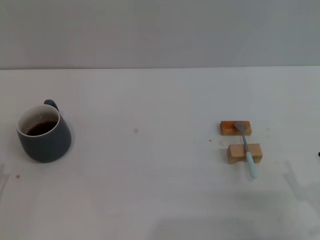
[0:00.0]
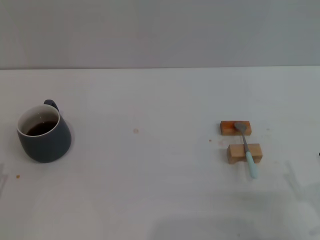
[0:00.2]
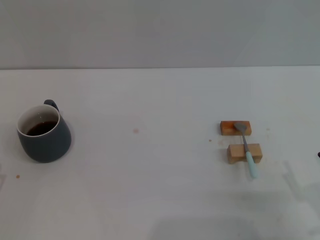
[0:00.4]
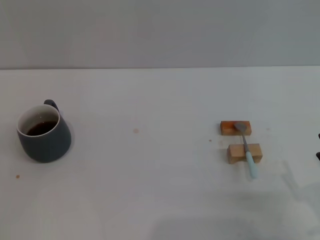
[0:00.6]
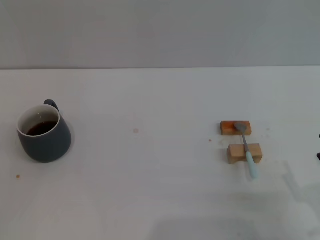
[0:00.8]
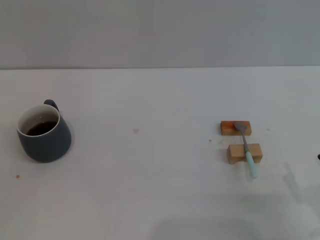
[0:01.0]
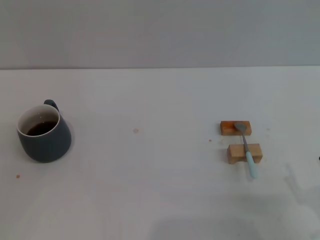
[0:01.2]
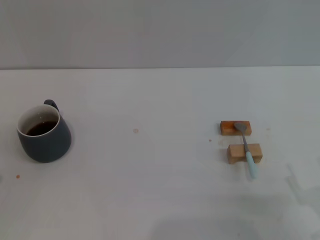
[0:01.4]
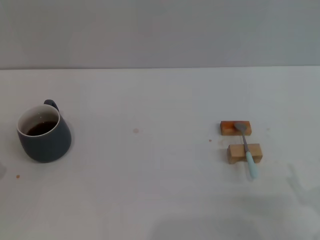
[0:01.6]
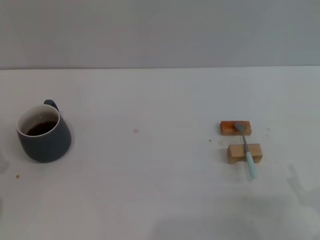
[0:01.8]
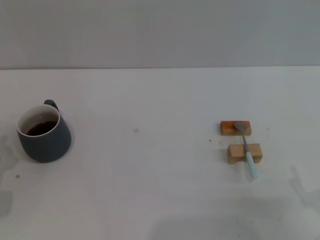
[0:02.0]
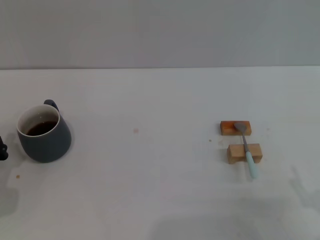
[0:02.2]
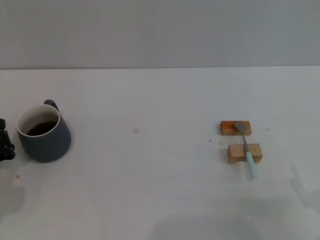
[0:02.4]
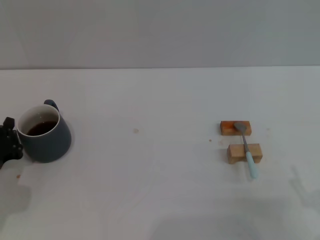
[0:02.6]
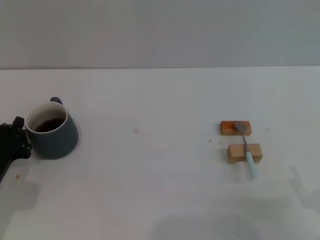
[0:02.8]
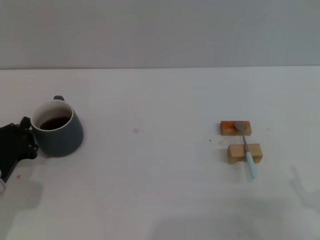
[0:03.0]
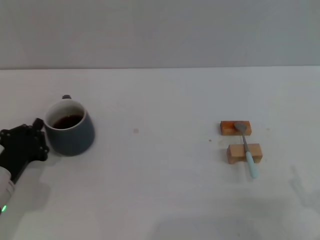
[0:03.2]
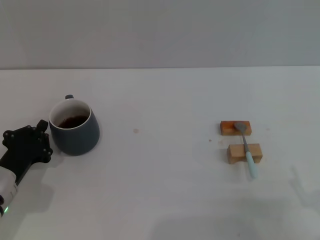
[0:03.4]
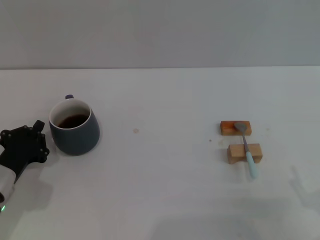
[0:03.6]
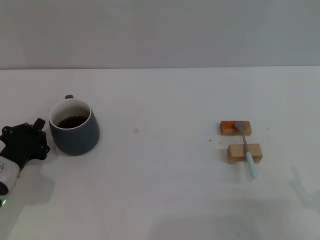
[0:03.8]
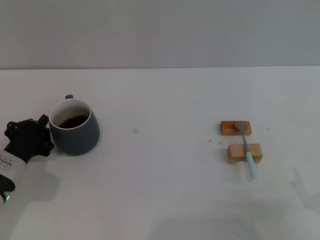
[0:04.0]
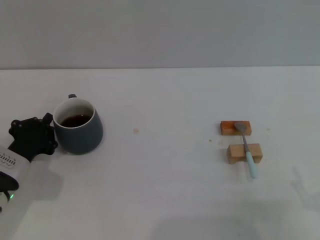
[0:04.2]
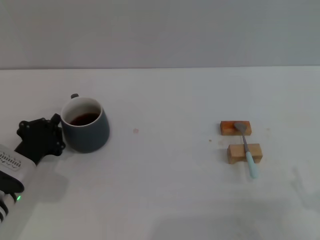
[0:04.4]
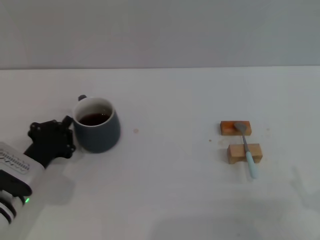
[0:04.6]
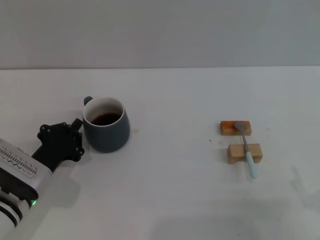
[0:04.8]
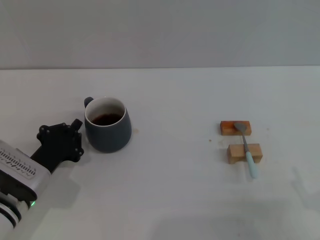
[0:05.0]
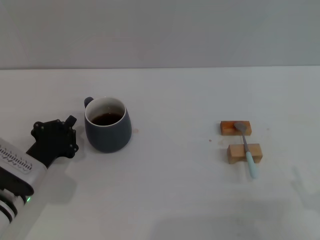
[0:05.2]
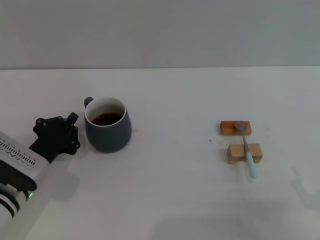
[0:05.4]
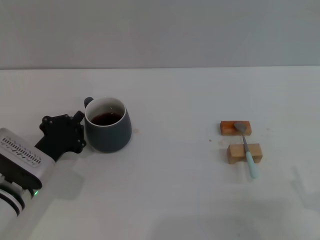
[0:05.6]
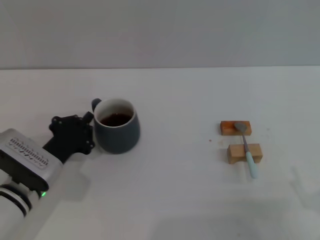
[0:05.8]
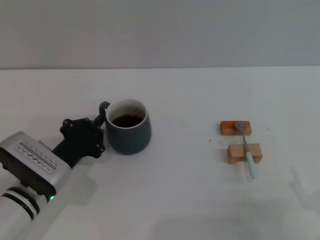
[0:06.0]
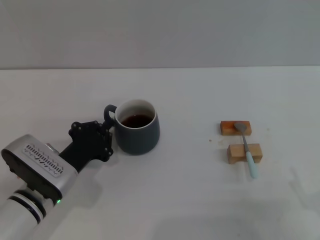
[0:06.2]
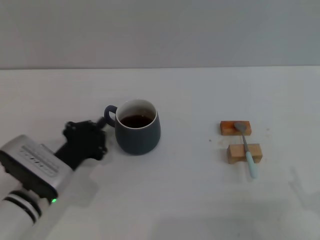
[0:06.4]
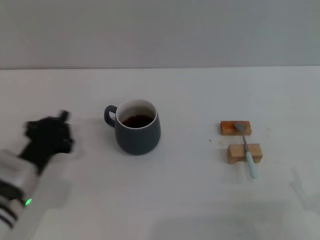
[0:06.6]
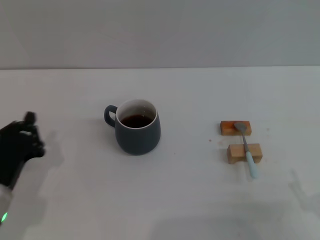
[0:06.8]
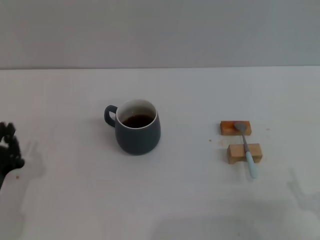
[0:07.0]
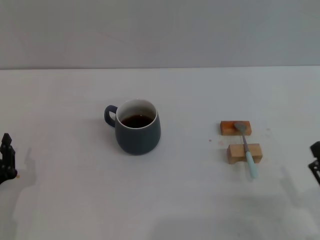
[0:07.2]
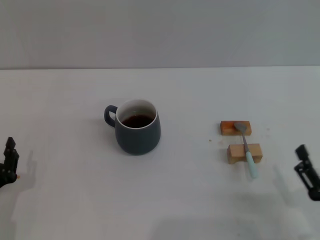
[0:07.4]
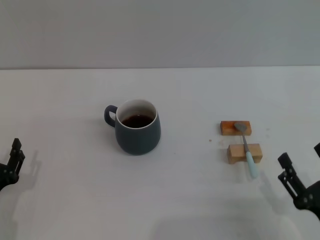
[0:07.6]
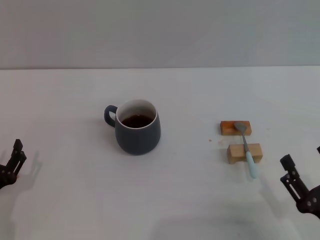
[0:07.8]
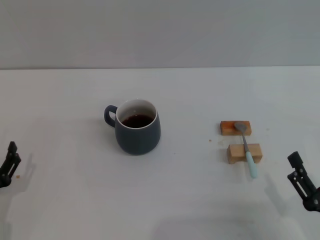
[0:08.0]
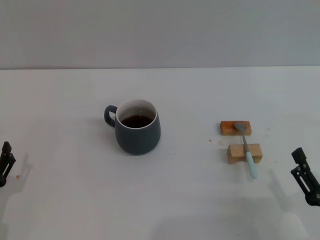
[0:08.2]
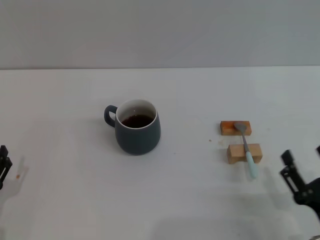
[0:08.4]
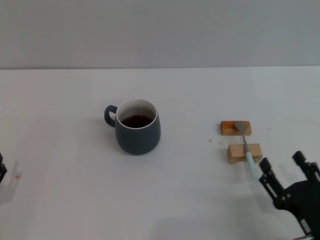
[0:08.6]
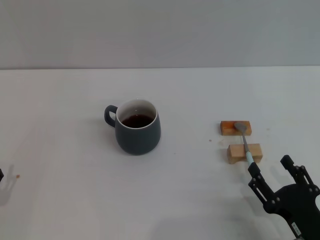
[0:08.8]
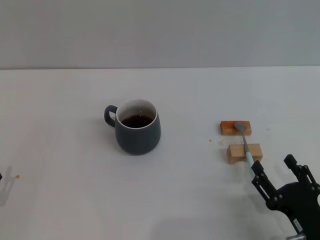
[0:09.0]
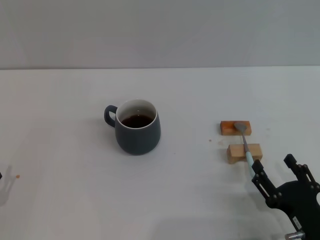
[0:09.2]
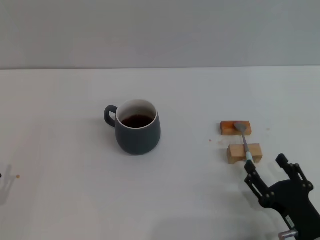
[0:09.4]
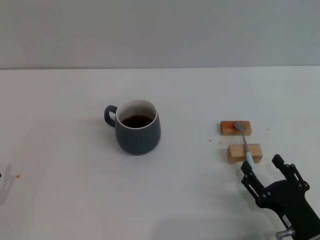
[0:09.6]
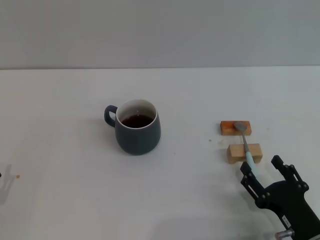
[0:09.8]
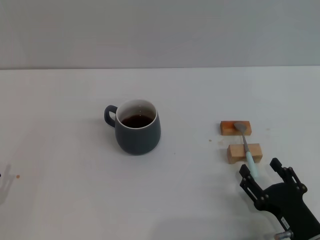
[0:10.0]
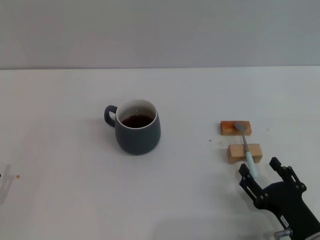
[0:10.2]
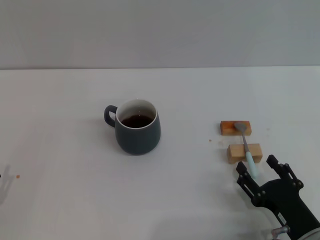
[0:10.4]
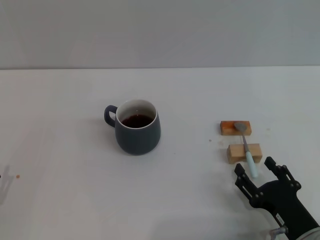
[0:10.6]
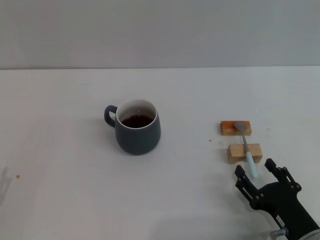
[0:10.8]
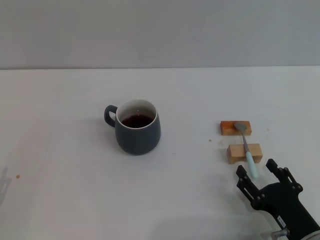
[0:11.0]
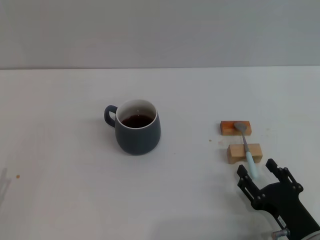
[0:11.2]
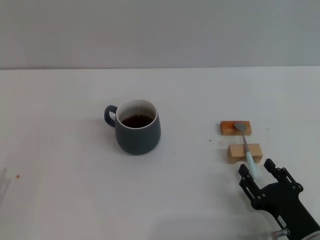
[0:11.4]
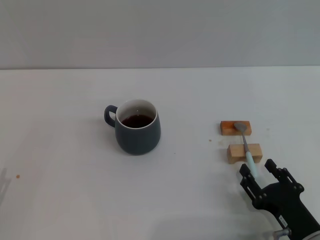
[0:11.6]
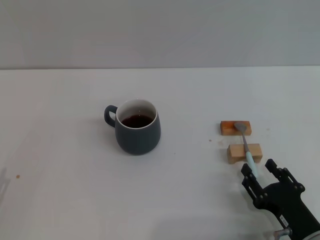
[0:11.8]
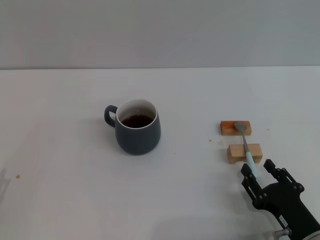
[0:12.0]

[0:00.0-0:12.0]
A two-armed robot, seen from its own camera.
Task of the whole recording: Move the grey cup to the center, lift the blue spoon, stir it three times in the cup, and put the spoon into the cup.
Step, 0:00.0 to 0:06.4: Move the cup with coffee to the center of view with the left gripper.
0:01.6 to 0:03.0: The left gripper travels forward by approximately 5 cm, and closes up.
0:03.0 to 0:04.4: The grippers stay close to where they were, moving slightly.
0:04.4 to 0:06.0: The grippers stay close to where they were, moving slightly.
0:06.0 to 0:07.6: The left gripper goes approximately 10 cm backward and to the left, and opens its fingers.
0:07.6 to 0:09.0: The left gripper opens up.
0:09.0 to 0:10.4: The grippers stay close to where they were, moving slightly.
0:10.4 to 0:12.0: The two grippers keep their place.

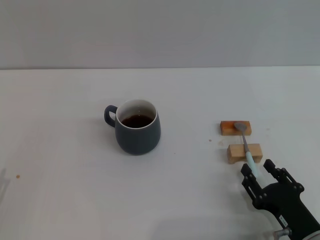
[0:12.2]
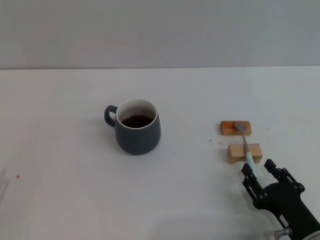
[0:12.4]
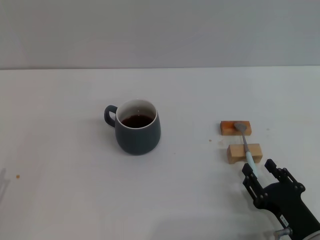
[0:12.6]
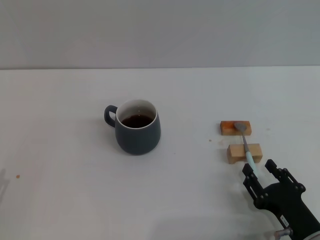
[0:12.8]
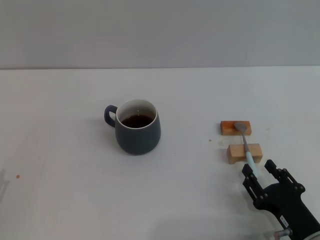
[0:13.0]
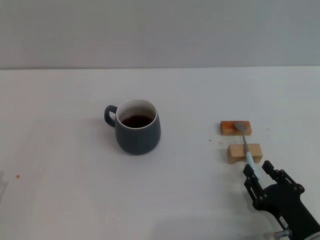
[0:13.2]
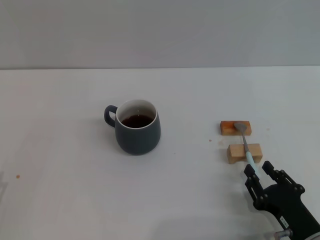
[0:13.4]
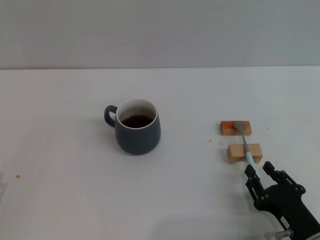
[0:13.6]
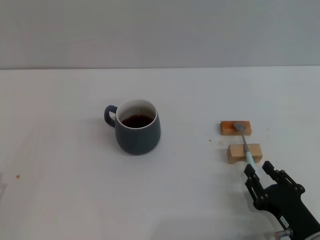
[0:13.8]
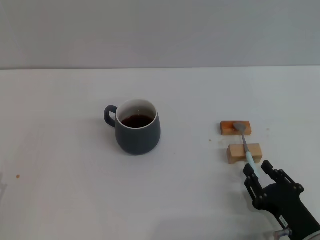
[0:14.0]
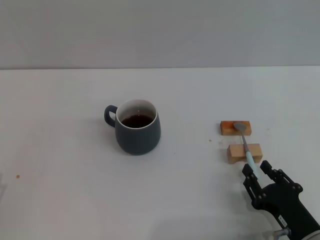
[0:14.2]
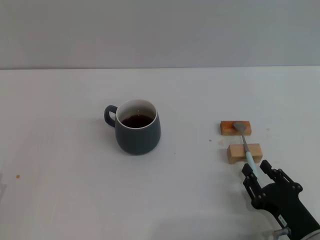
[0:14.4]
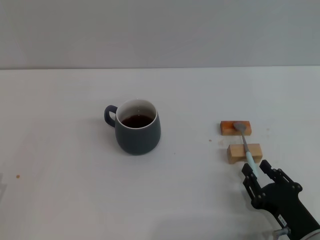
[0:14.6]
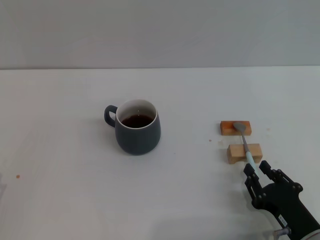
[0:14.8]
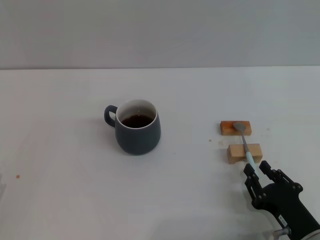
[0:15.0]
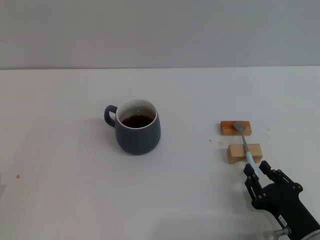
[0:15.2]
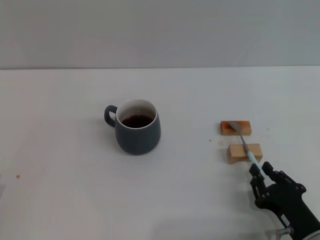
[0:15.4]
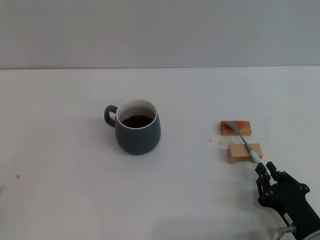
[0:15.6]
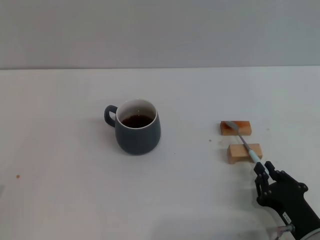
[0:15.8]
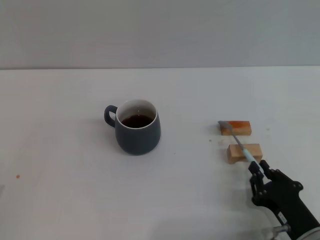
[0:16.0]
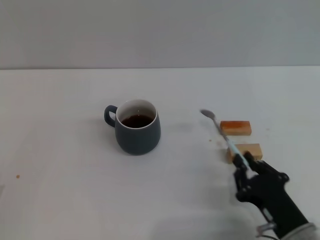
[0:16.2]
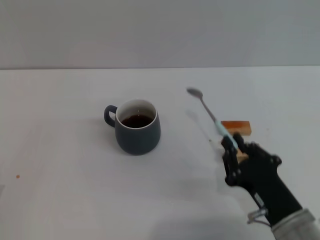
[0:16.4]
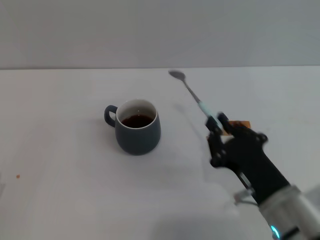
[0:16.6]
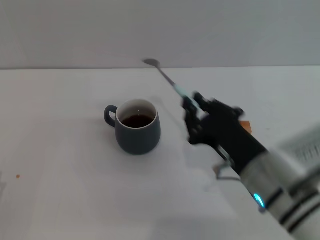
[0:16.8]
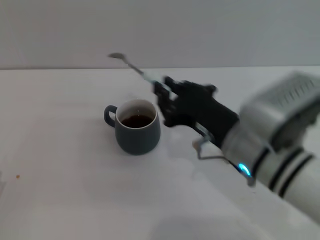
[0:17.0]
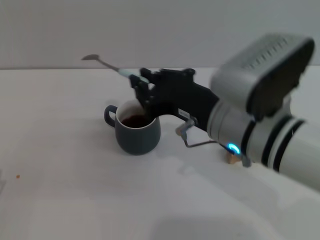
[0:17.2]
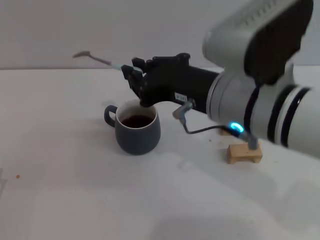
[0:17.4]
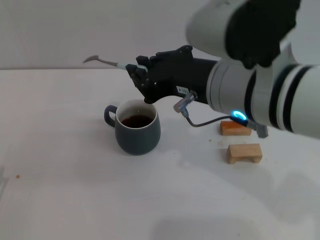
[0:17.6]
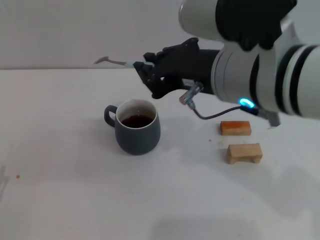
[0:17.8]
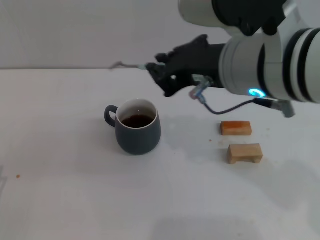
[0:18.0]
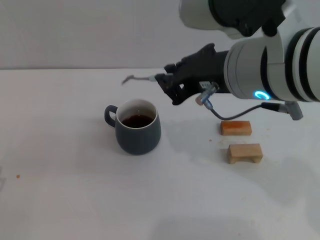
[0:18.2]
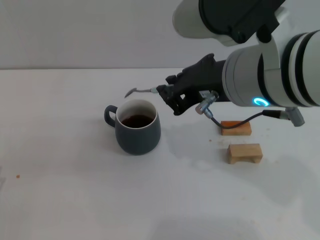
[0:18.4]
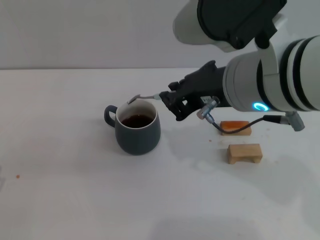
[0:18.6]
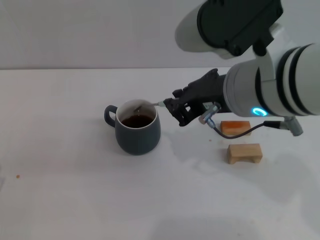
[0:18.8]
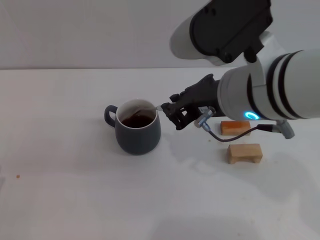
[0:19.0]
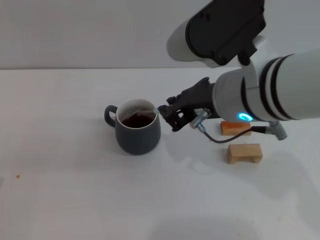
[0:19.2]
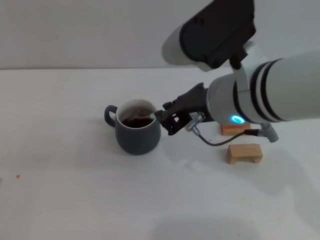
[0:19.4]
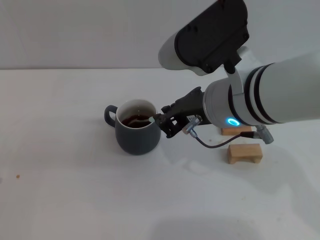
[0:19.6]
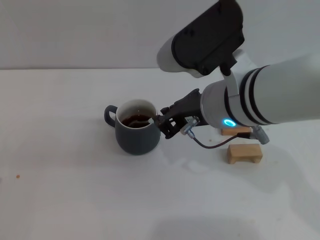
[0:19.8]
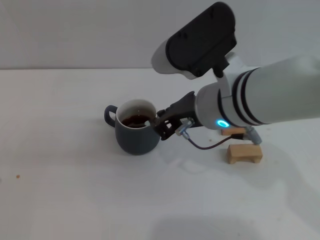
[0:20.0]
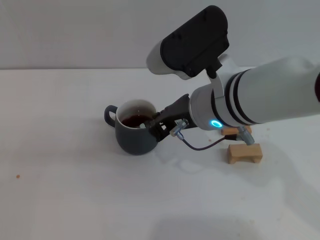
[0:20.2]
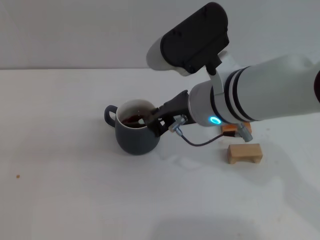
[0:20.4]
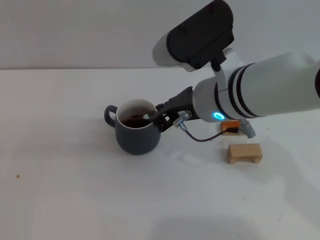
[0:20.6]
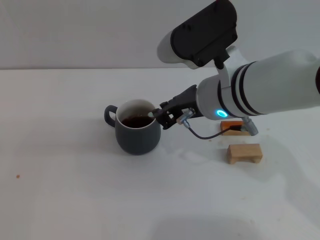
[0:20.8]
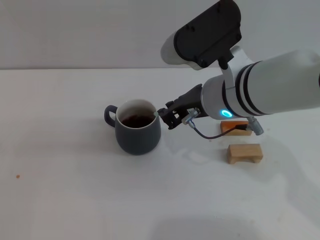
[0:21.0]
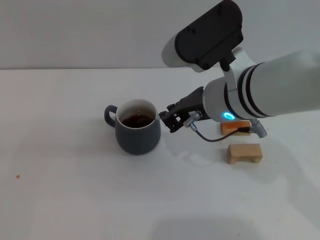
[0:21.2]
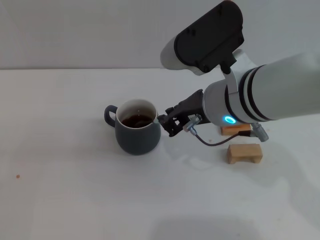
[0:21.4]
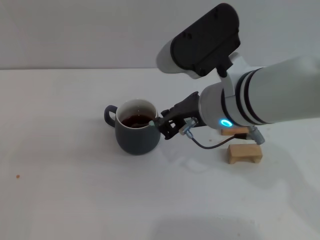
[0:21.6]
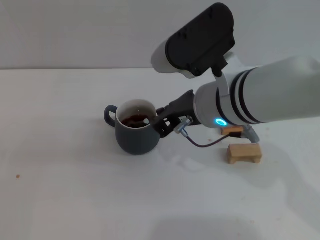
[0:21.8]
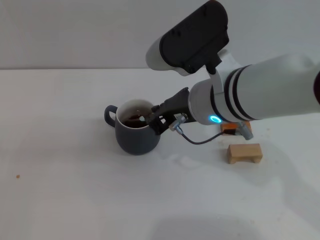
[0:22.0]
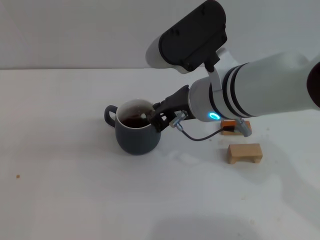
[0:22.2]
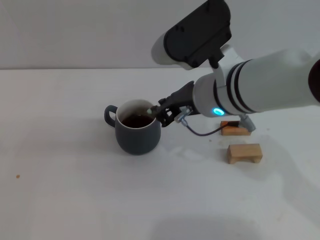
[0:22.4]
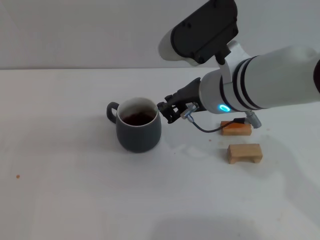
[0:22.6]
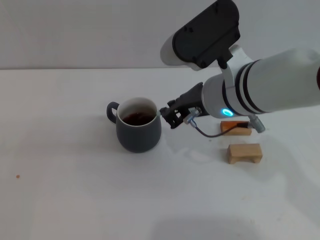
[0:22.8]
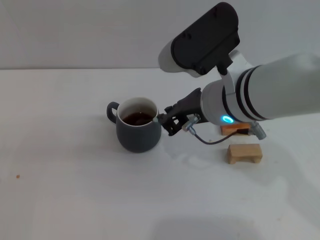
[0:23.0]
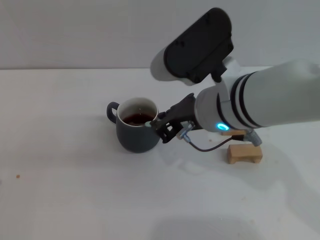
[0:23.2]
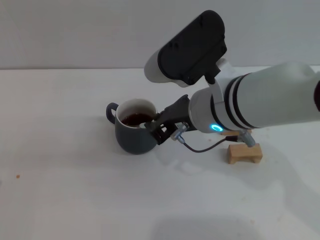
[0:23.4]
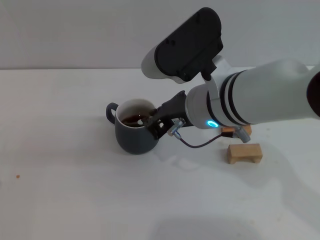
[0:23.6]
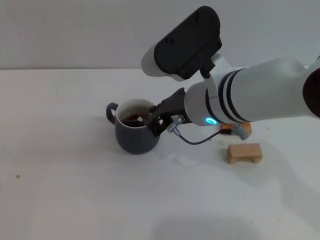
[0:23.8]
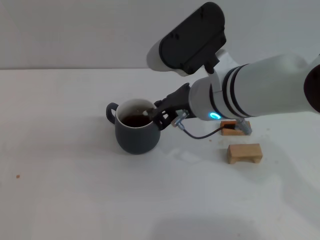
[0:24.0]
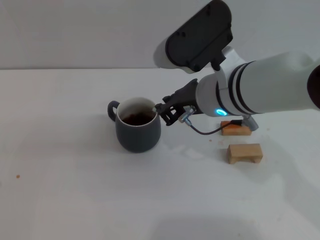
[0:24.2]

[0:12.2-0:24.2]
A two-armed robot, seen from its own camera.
Task of the whole recording: Move the grey cup to the center, lift the blue spoon, stir it three times in the cup, and put the spoon into the cup.
Step, 0:12.2 to 0:16.2: Pick up the spoon with the right gripper.
0:12.2 to 0:15.2: Neither gripper changes place.
0:15.2 to 0:16.6: The right gripper heads upward and to the left, covering approximately 10 cm.
0:16.6 to 0:18.2: The right gripper shifts some 20 cm upward.
0:18.2 to 0:19.8: The right gripper travels downward by roughly 5 cm.
0:19.8 to 0:24.2: There are only small adjustments of the grippers.
